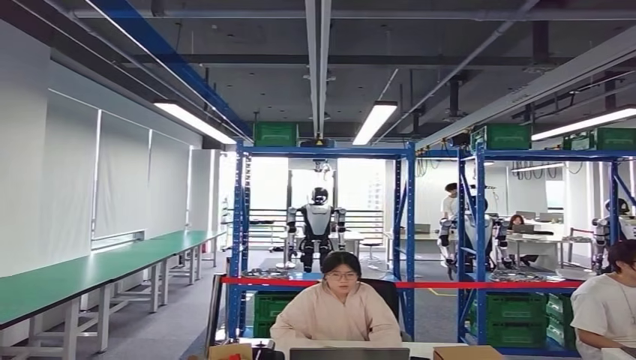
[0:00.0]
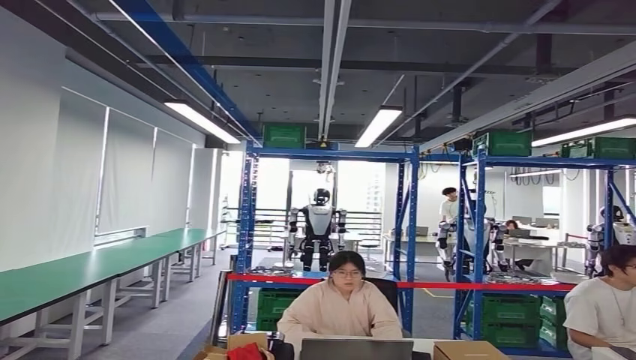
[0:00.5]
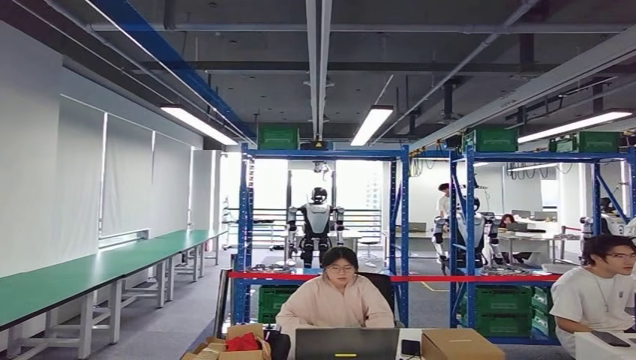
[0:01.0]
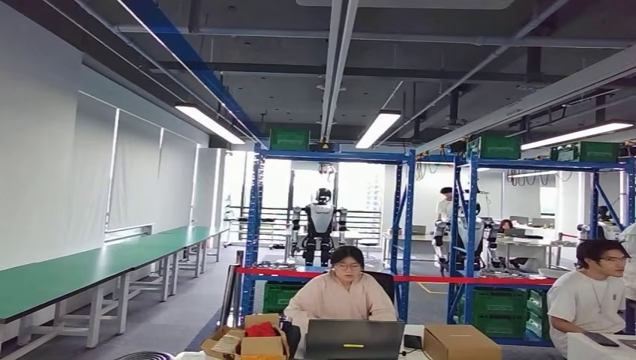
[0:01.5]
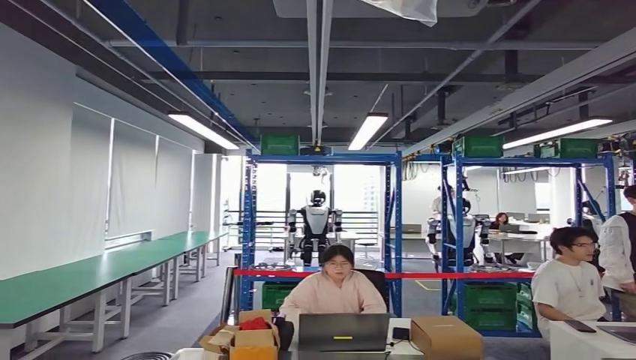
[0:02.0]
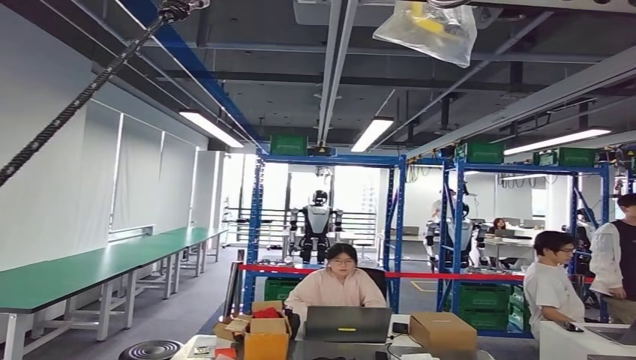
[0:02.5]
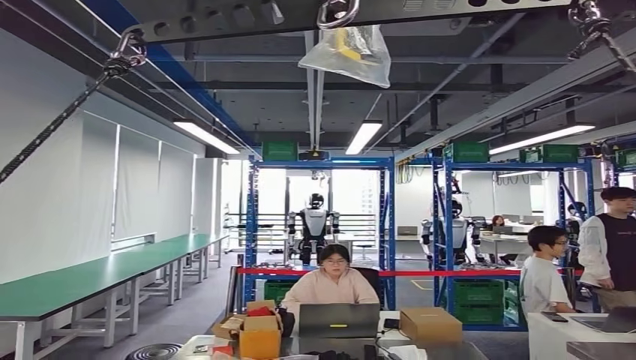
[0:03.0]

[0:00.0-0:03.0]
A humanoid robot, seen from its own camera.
Step, 0:00.0 to 0:03.0: Return to the initial position at the workbench.
